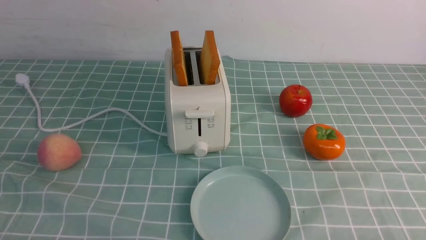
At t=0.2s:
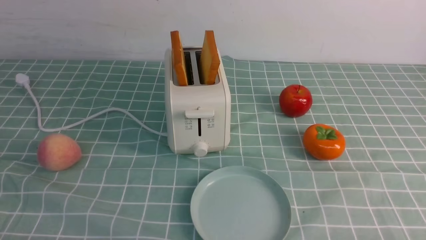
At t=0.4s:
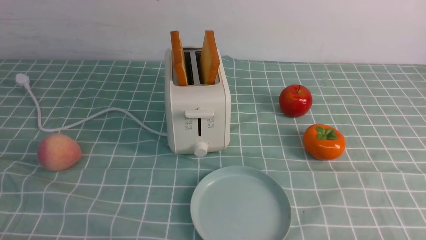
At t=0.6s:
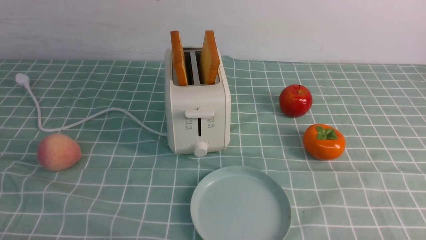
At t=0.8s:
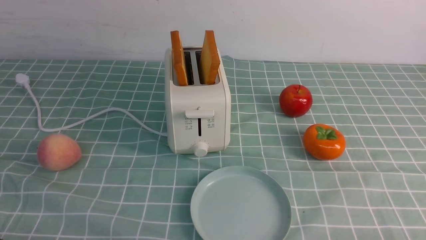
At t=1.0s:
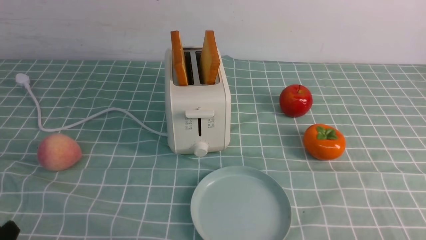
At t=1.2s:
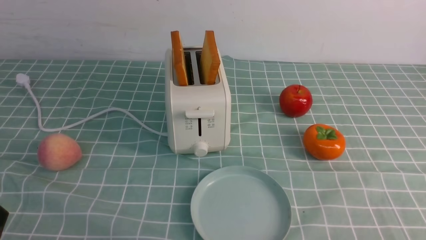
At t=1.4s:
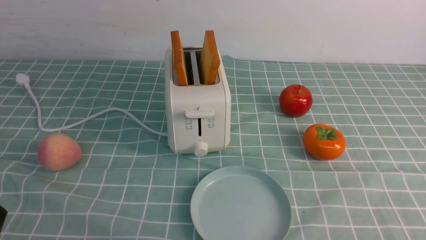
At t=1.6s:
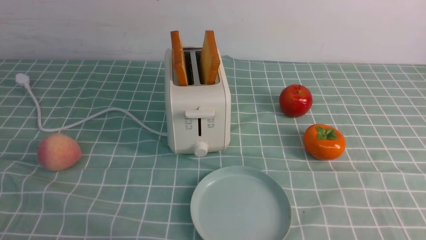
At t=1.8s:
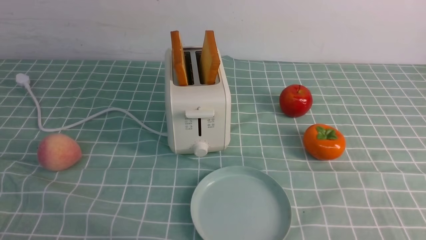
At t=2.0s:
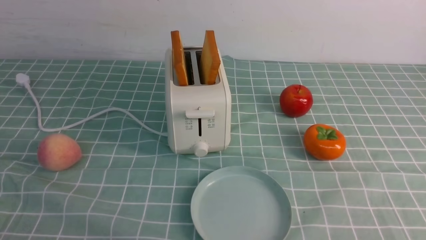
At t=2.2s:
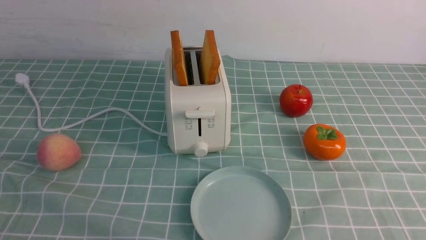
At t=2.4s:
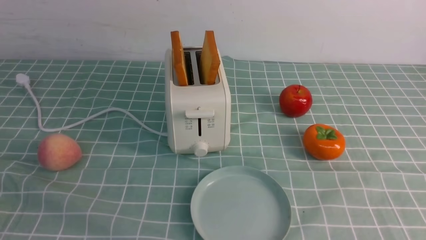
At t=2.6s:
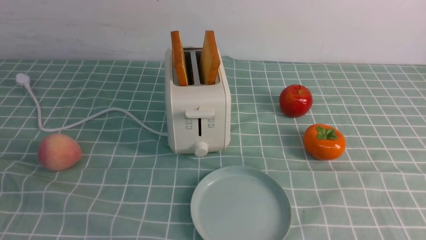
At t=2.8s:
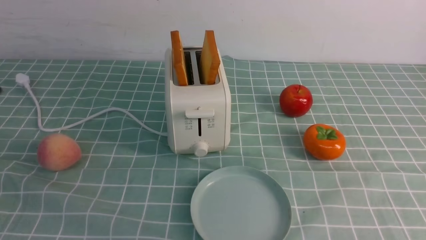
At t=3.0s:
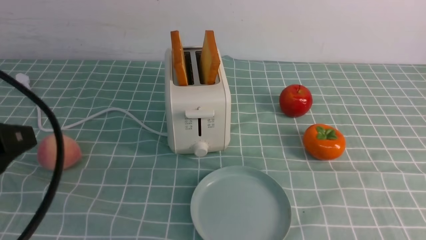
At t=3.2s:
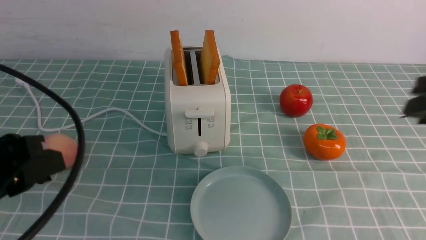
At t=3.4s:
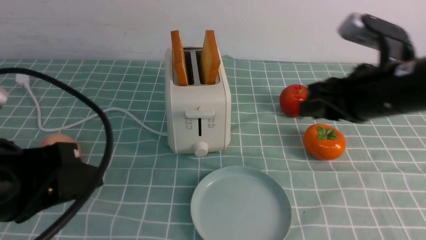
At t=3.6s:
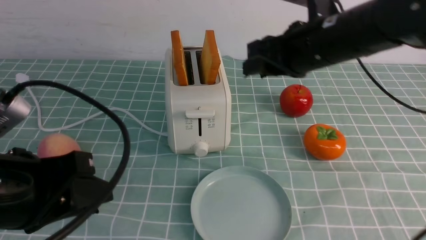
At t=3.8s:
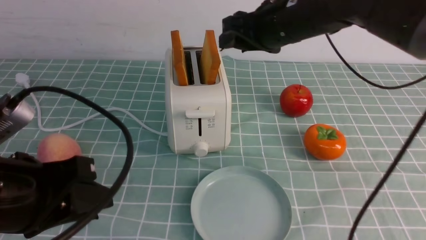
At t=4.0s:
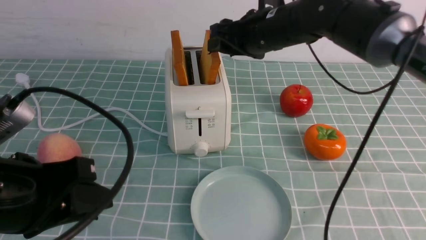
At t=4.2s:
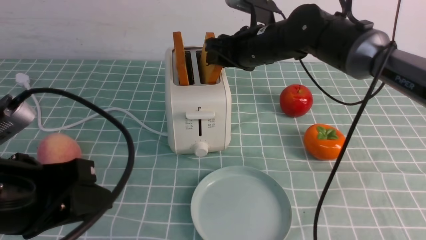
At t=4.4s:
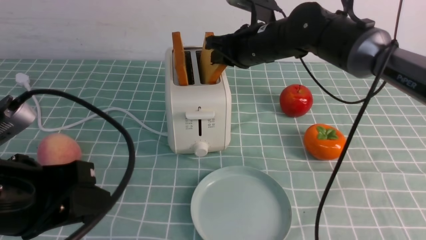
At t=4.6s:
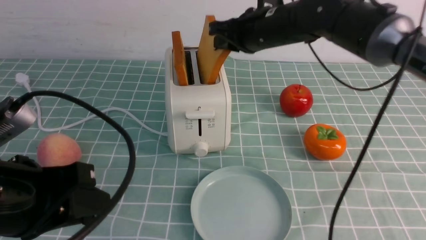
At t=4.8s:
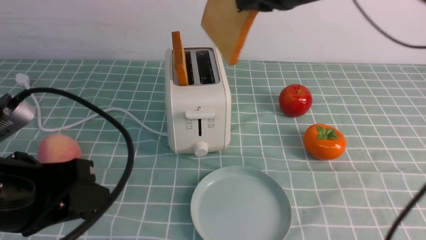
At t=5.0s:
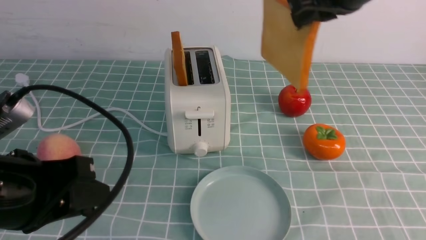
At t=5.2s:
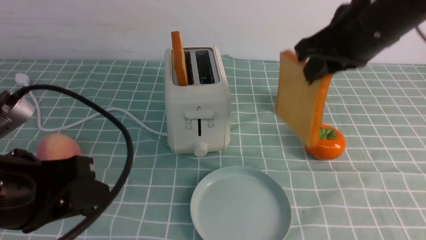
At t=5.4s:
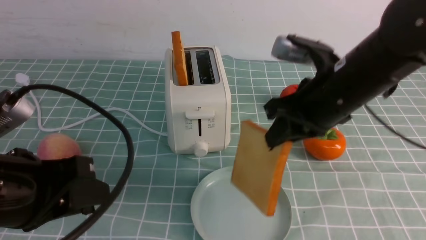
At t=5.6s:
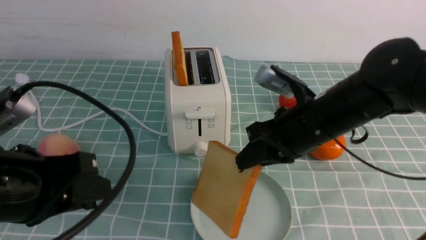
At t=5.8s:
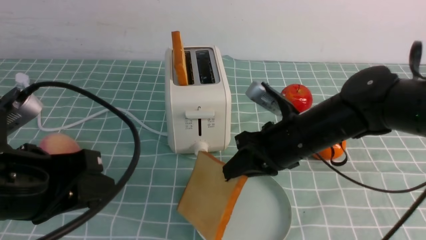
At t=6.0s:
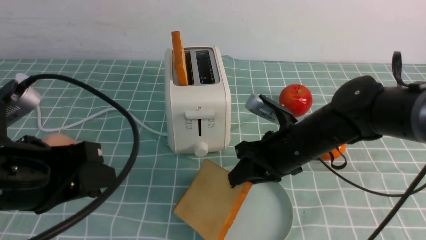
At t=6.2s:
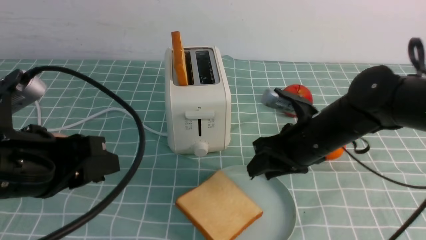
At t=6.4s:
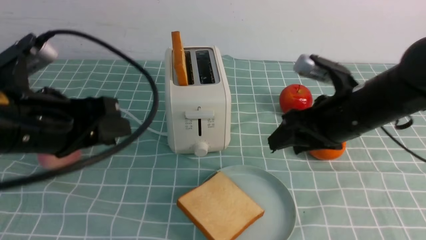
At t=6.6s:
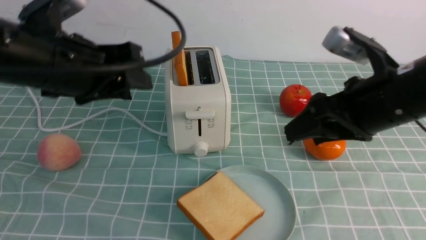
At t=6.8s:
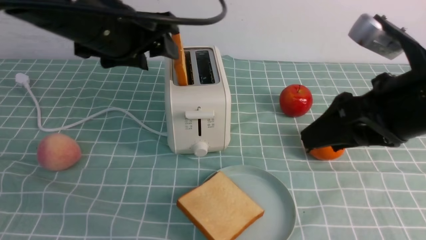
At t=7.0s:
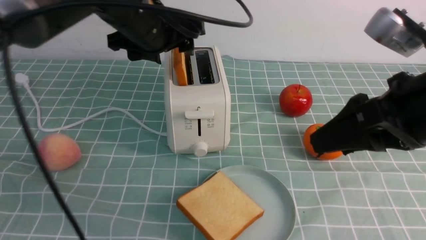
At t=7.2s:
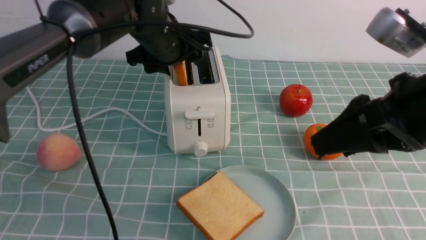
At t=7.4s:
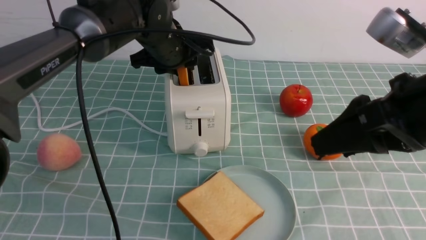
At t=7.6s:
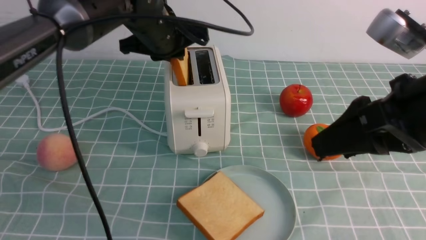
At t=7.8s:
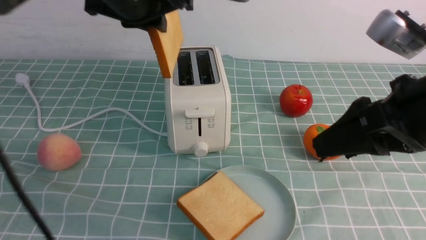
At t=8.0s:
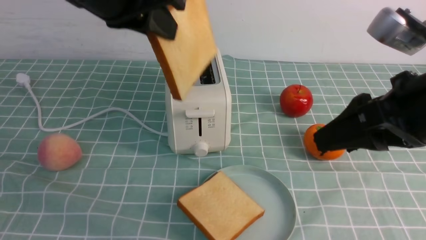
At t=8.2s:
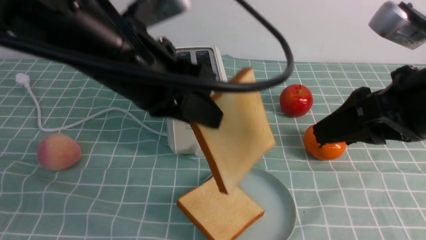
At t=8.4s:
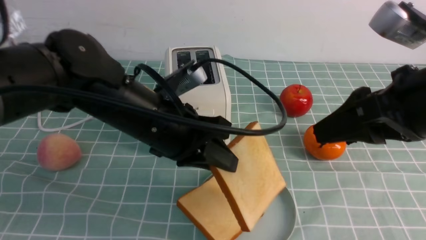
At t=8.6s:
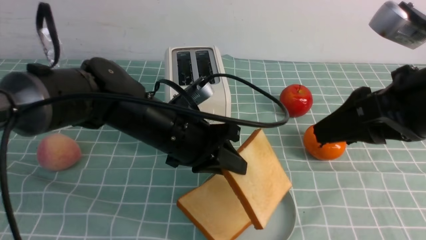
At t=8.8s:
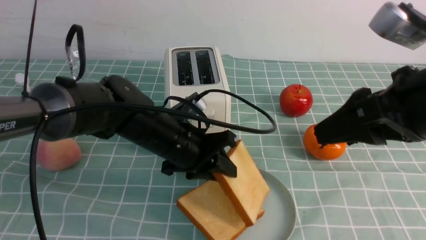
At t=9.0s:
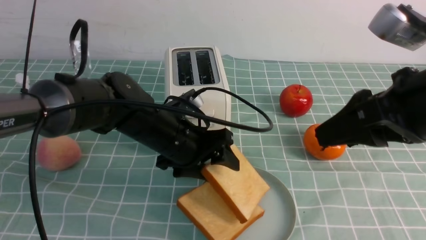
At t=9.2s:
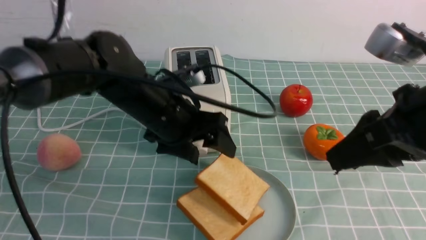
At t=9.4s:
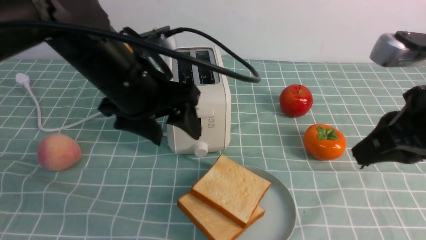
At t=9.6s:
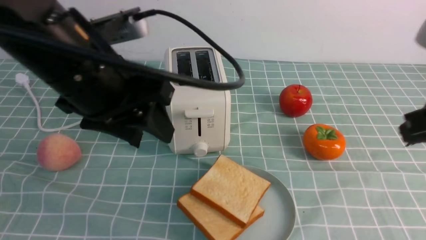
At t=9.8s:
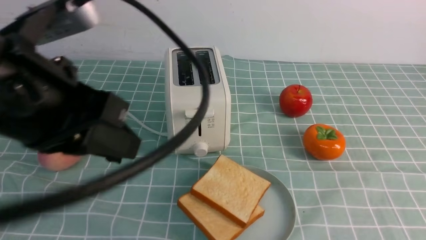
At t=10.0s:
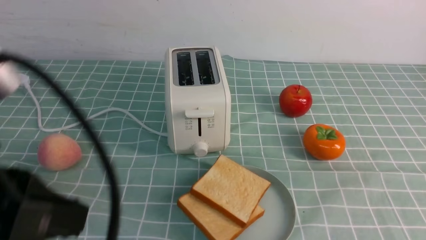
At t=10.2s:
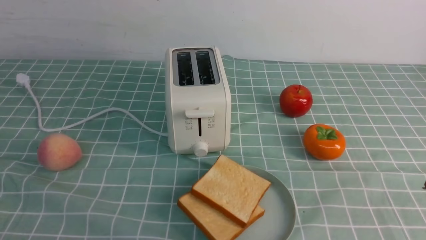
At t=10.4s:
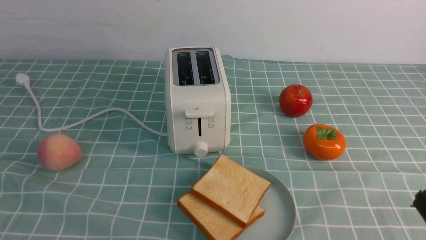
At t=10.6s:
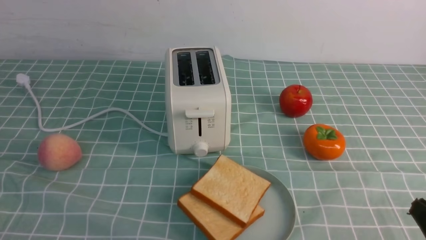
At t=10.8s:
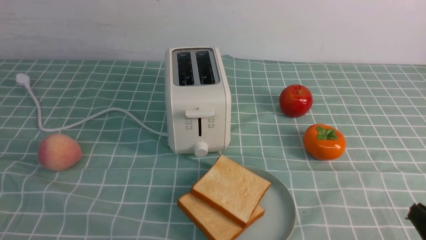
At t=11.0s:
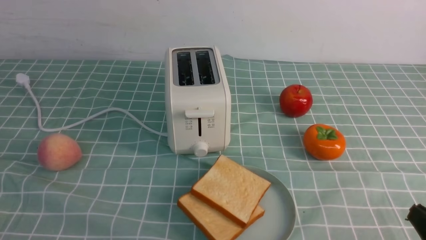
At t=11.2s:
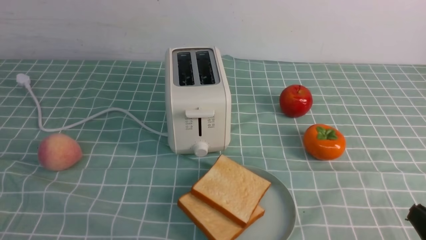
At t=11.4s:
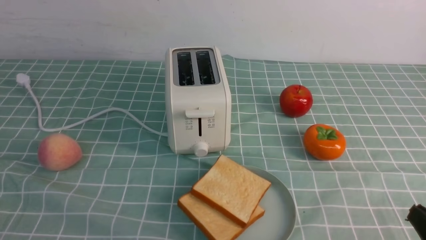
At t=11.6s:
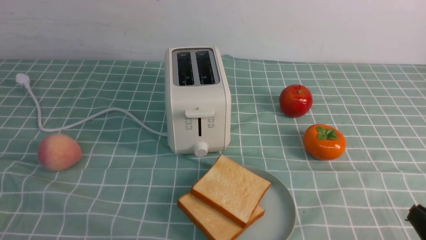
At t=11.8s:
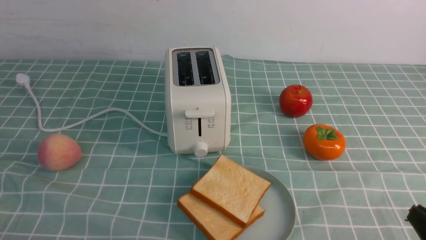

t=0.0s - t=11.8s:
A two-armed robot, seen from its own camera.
Task of the whole recording: take toasted bread from bread machine on blue coffee table place on plate.
Step, t=0.0s - t=4.6s: use the right arm to take out a slice of bread.
Step, t=4.8s - t=6.2s: use the right arm to put a slice of bread into the plate.
Step, t=6.4s - t=7.8s: use the left arm to take out a slice of bread.
Step, t=8.0s - t=9.2s: use the left arm to put a slice of bread into the empty plate.
t=1.4s - t=3.0s: Both grippers move upward and forward, roughly 20 cm.
t=3.0s - t=4.4s: The left gripper changes place by some 5 cm; the right gripper moves forward and to the left, about 35 cm.
t=4.4s - t=6.0s: The right gripper goes about 15 cm backward and downward.
t=6.0s - t=7.4s: The right gripper travels upward, backward and to the right by about 20 cm, and opens up, while the left gripper is displaced forward and to the right by roughly 30 cm, and opens and closes again.
t=7.4s - t=8.8s: The left gripper goes roughly 15 cm backward and downward.
t=8.8s - t=10.4s: The left gripper moves backward and to the left, some 35 cm, and closes its fingers. Meanwhile the right gripper is displaced downward, backward and to the right by some 20 cm, and closes up.

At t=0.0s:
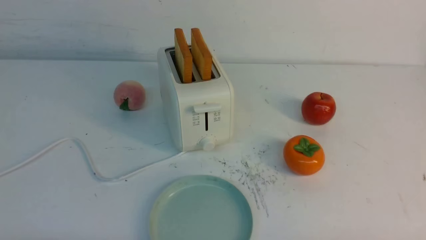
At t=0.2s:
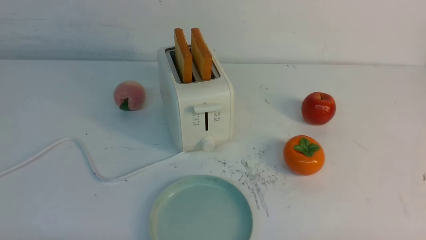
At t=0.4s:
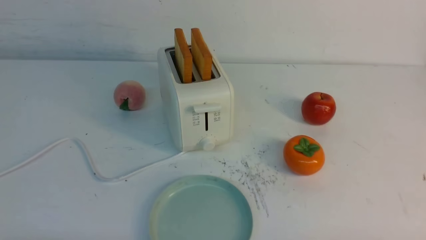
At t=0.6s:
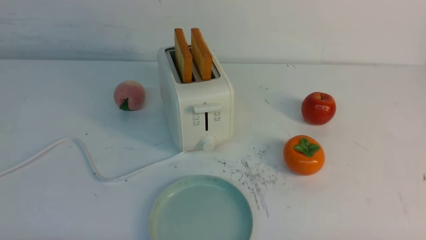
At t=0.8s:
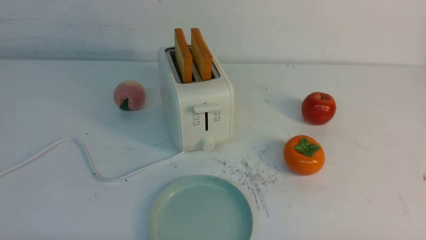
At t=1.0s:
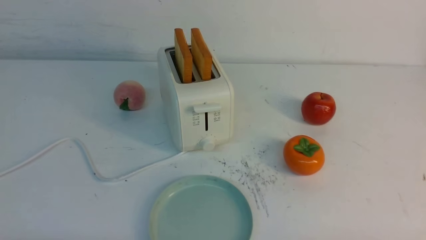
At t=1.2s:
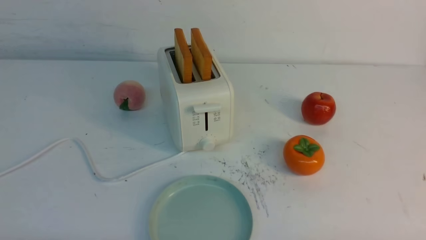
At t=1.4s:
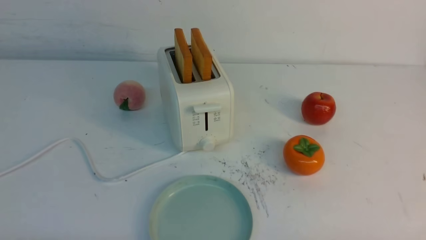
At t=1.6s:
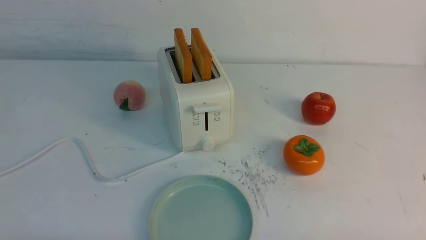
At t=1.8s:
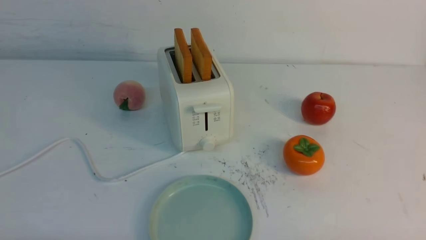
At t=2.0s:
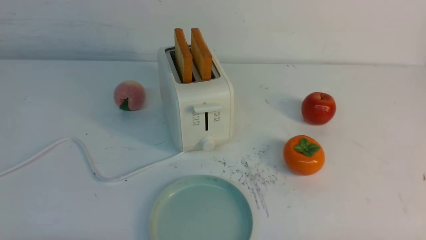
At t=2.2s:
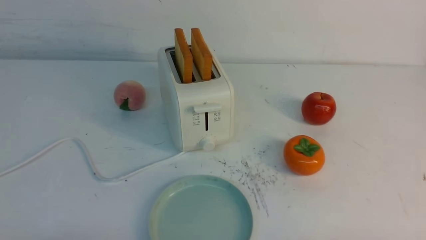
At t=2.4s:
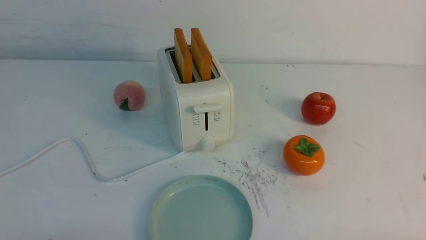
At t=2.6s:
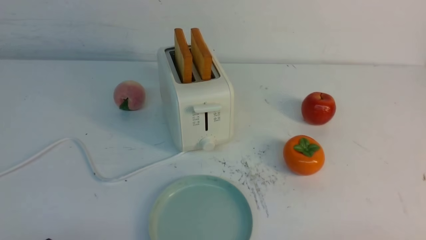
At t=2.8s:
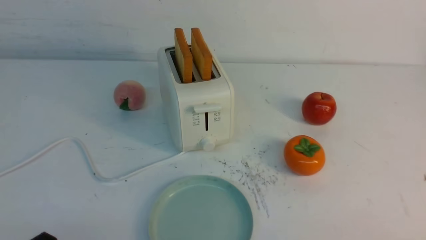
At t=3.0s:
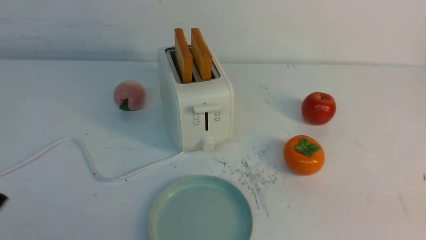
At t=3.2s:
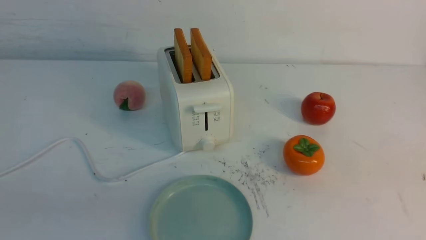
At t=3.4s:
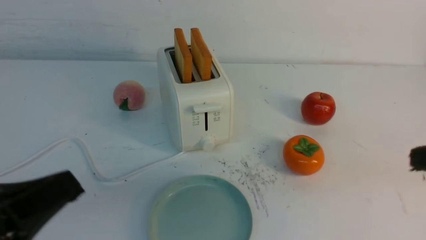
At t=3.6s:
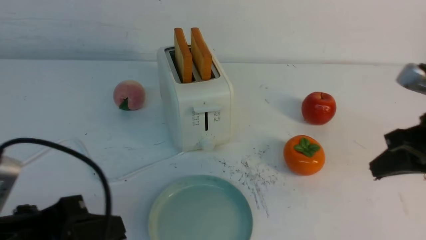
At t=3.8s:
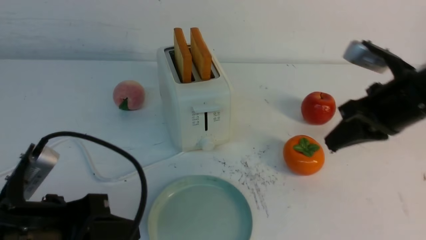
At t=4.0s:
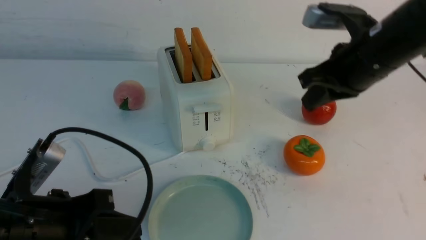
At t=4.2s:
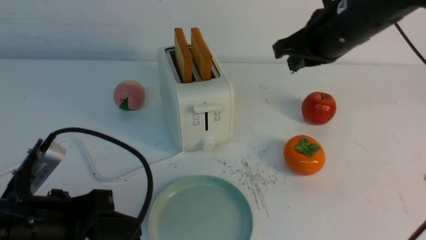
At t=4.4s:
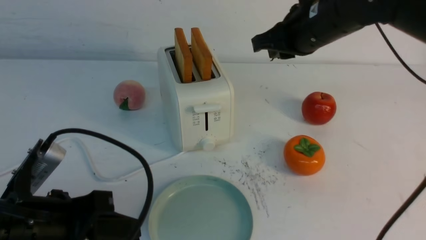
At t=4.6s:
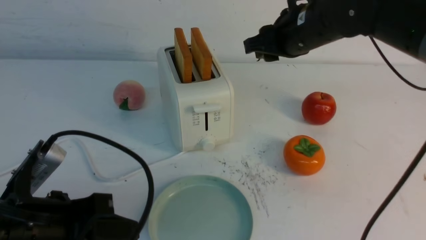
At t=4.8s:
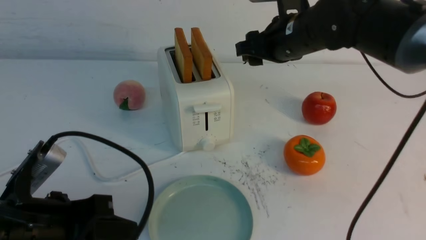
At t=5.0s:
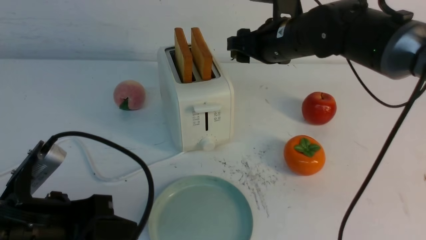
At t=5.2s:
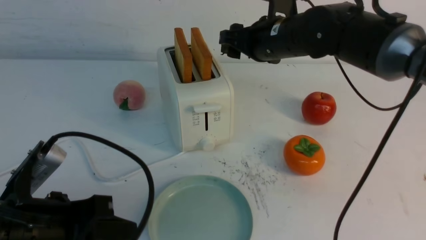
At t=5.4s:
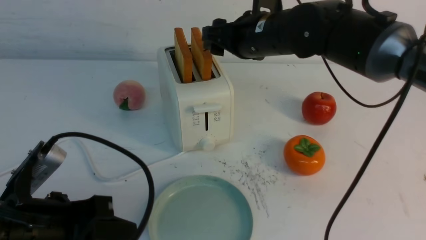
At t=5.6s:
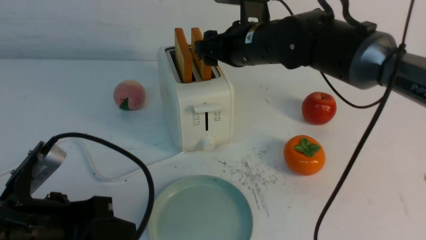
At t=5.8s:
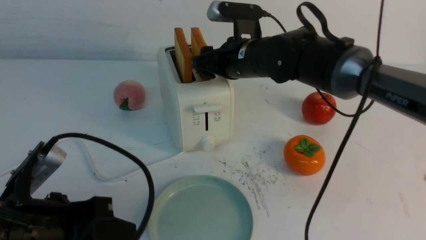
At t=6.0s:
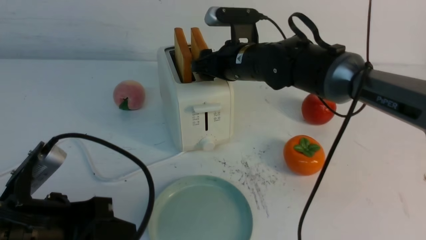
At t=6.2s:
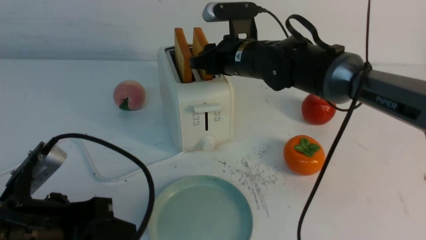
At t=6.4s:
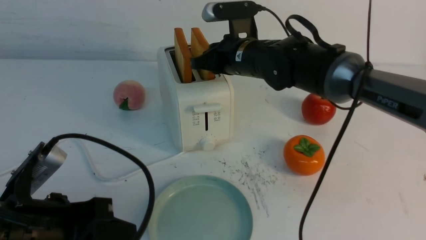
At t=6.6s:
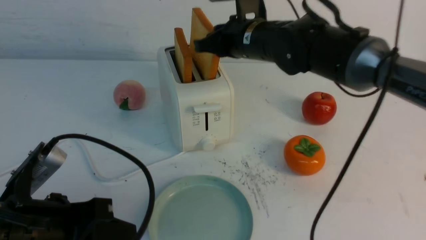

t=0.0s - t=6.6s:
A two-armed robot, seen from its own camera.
Task of the whole recording: take toasted bread from bread machine on white table place on plate.
t=0.0s - t=1.6s: Neither gripper changes place.
t=3.2s - t=5.0s: The left gripper heads forward, covering about 10 cm, while the right gripper is displaced forward and to the left by some 35 cm, and opens its fingers.
t=5.0s - t=6.6s: The right gripper closes up.
